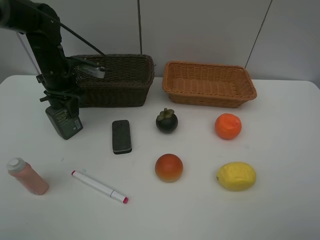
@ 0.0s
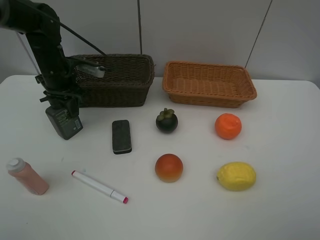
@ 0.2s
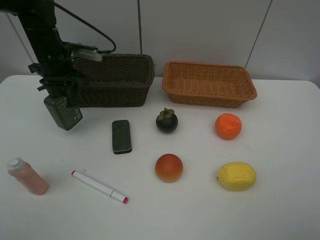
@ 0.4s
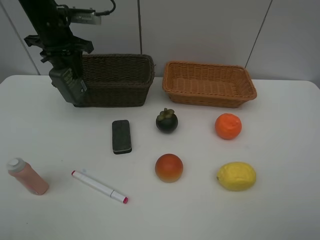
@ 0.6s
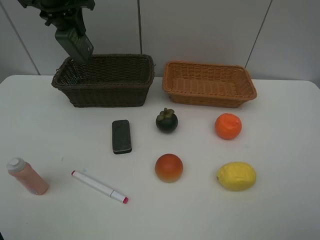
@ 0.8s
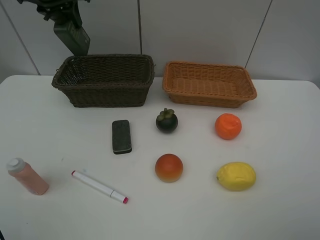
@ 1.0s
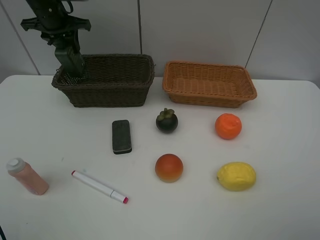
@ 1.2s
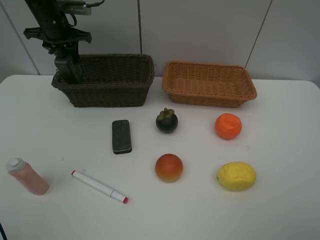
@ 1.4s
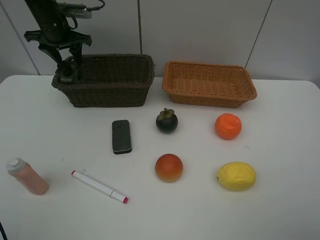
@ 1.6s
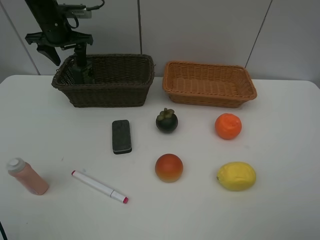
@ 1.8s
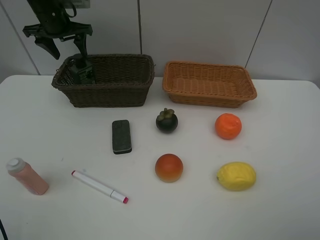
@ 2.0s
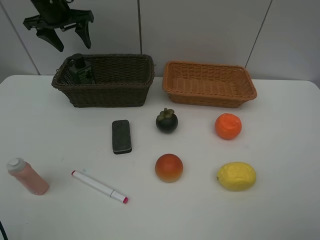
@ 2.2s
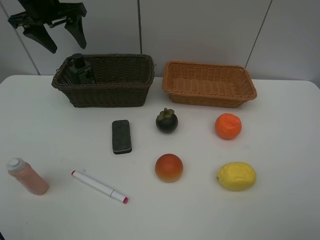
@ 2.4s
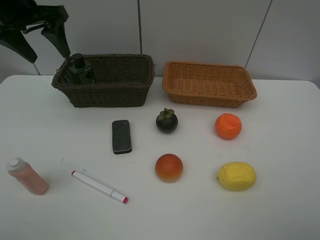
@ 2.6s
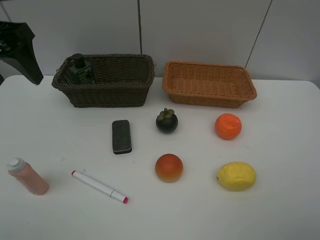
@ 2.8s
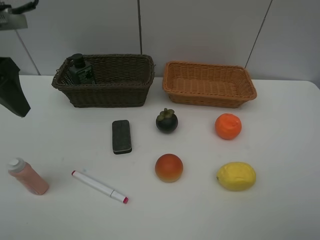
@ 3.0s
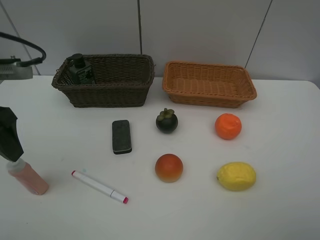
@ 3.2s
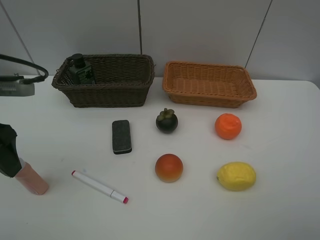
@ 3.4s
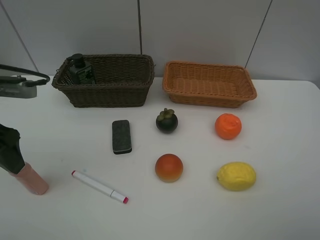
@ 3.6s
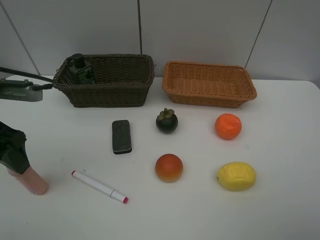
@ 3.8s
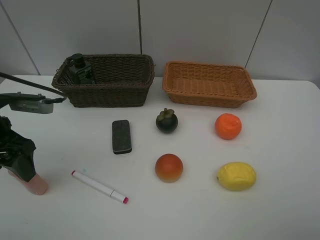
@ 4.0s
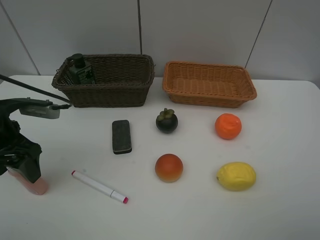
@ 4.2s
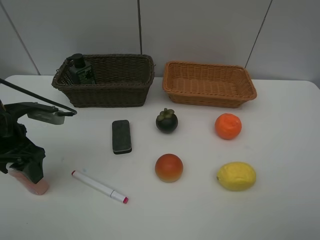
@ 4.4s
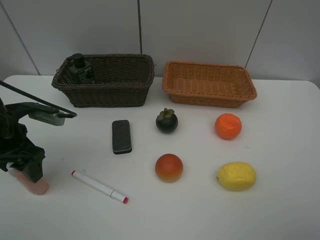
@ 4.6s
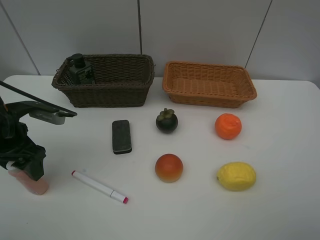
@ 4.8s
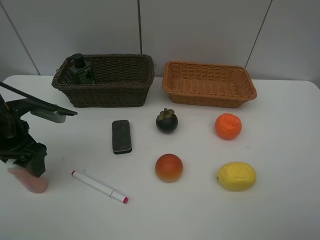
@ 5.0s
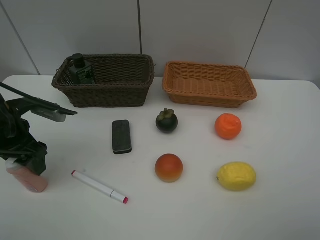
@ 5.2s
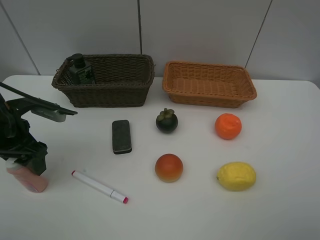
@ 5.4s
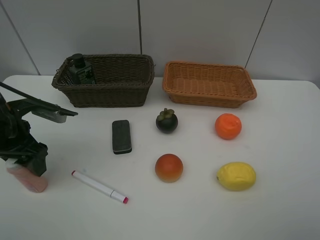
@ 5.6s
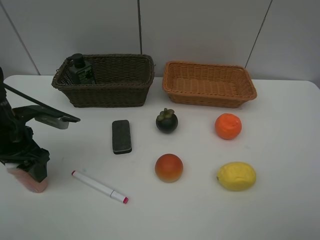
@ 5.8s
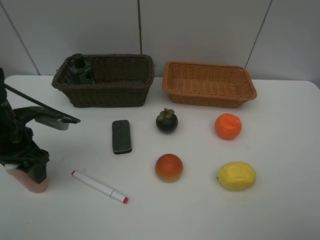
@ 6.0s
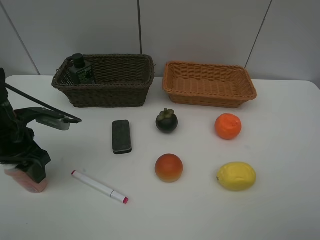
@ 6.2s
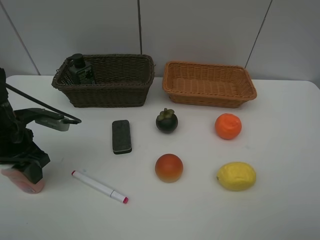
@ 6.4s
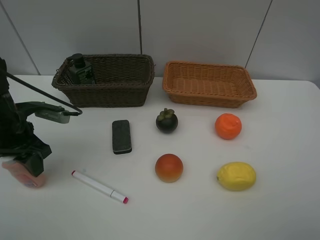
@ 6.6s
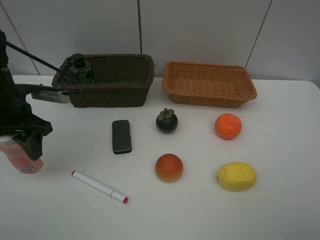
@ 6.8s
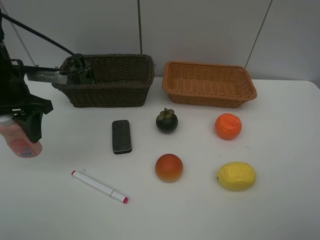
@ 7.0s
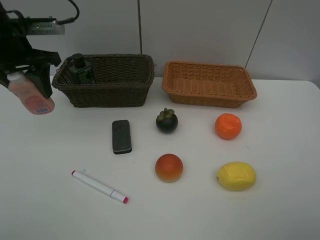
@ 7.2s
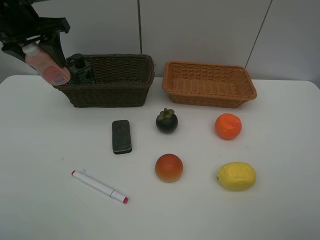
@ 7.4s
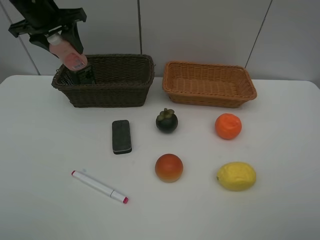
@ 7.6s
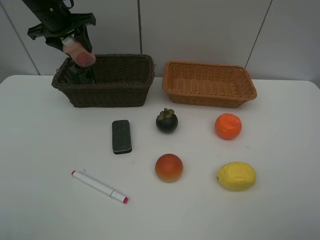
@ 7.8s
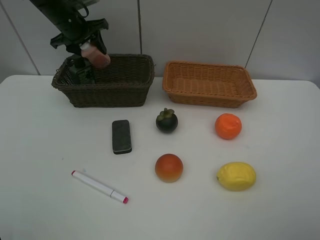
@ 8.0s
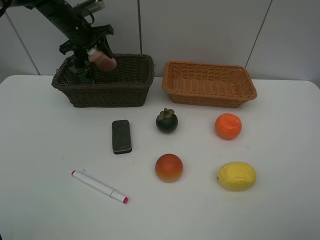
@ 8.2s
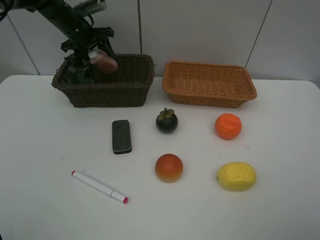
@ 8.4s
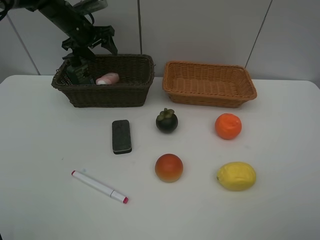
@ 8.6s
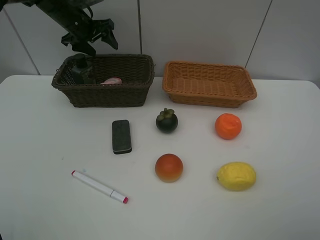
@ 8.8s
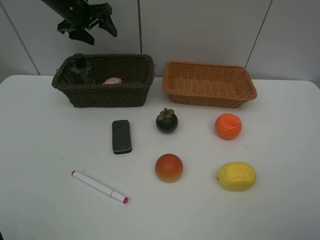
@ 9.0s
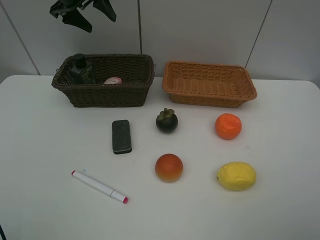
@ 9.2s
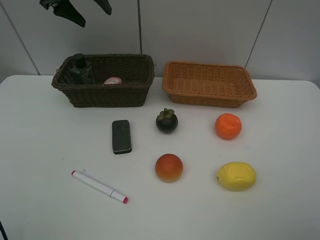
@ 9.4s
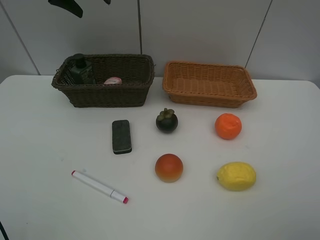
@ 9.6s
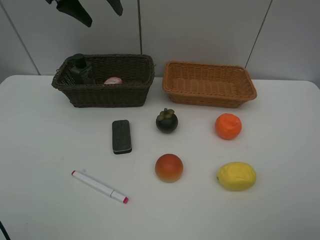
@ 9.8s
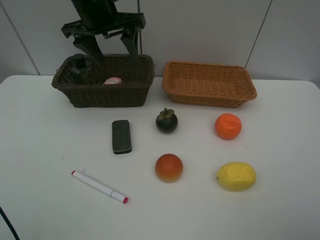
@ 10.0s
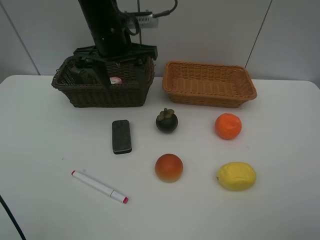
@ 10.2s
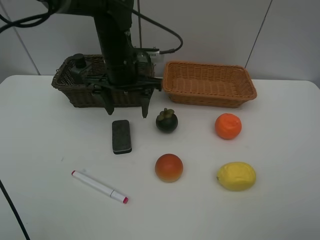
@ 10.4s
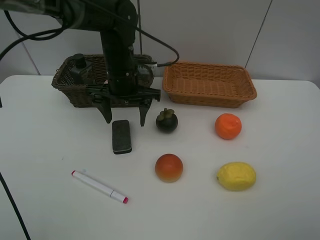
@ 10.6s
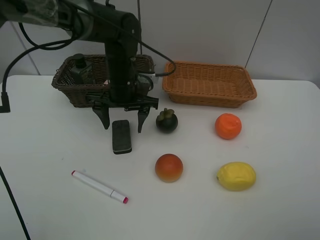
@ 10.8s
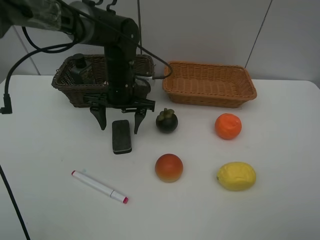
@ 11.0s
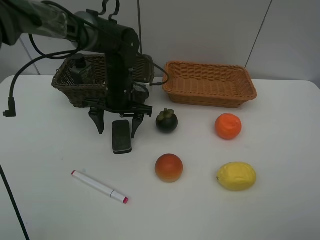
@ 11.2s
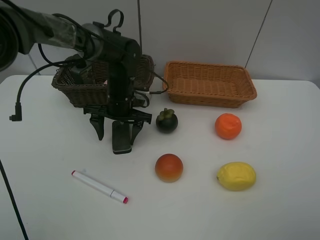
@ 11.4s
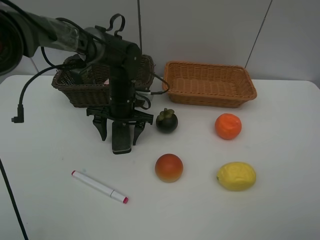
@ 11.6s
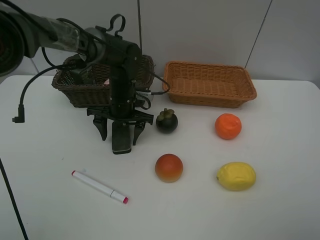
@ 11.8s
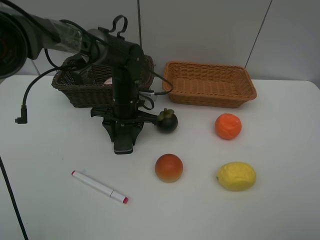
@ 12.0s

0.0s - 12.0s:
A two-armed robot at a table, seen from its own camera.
Task of the whole recording: Place multiple objects separately in different baskets.
Step, 0.6s - 2.0s: Place the hard facial cleanser in the dark basket with left gripper.
Step, 2.2s - 6.6s: Pick up the laundry detergent with left gripper.
Step, 6.8s - 8.6s: Place the laundry detergent in the dark basket with left gripper.
0.0s - 1.6s: The left gripper moves forward and upward, roughly 10 cm, and opens its fingers.
1.6s - 3.0s: The left gripper travels backward by some 30 cm.
3.0s - 4.4s: The left gripper moves downward, about 15 cm.
4.4s - 6.0s: The grippers stay close to where they were, moving slightly.
6.0s - 7.6s: The left gripper is displaced forward and upward by some 25 cm.
7.6s - 9.0s: The left gripper heads forward, covering about 10 cm, and opens.
9.0s - 10.4s: The left gripper shifts approximately 20 cm backward and to the right.
10.4s - 12.0s: The left gripper shifts about 10 cm downward, and closes.

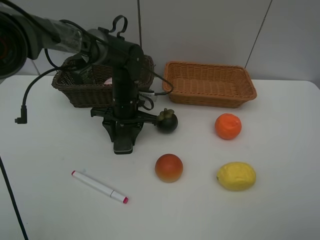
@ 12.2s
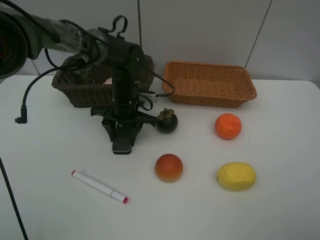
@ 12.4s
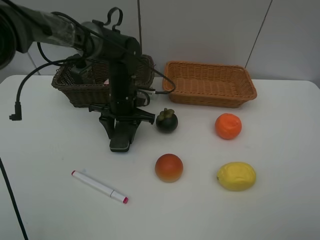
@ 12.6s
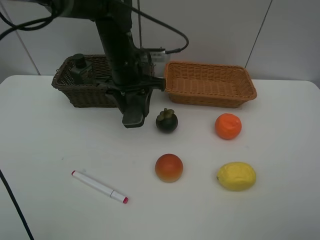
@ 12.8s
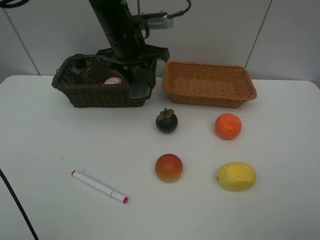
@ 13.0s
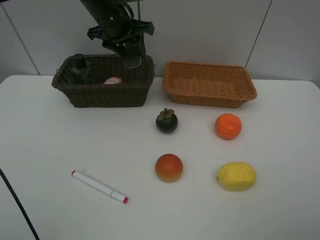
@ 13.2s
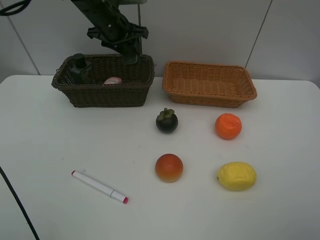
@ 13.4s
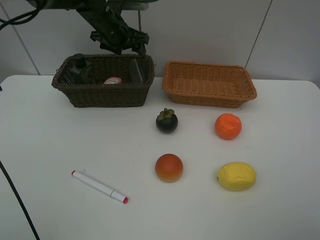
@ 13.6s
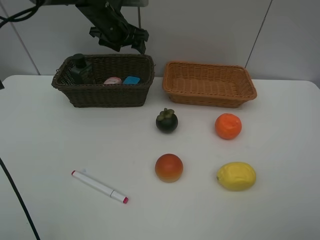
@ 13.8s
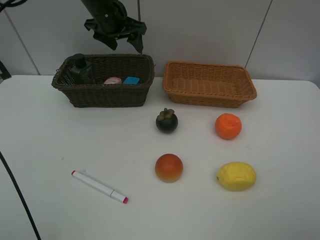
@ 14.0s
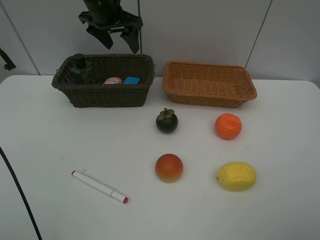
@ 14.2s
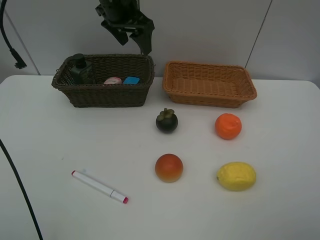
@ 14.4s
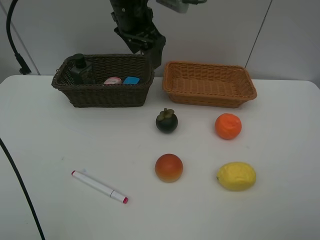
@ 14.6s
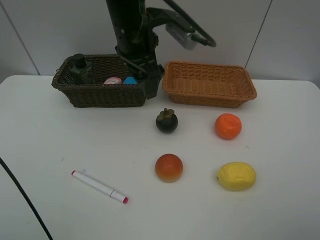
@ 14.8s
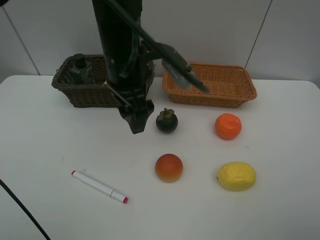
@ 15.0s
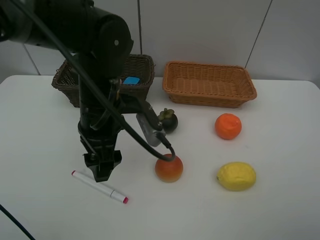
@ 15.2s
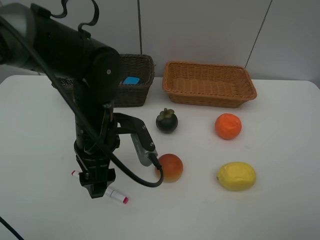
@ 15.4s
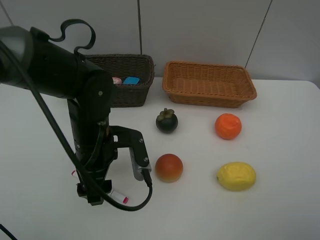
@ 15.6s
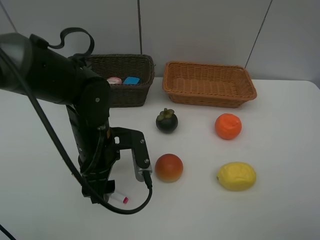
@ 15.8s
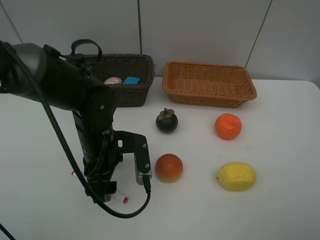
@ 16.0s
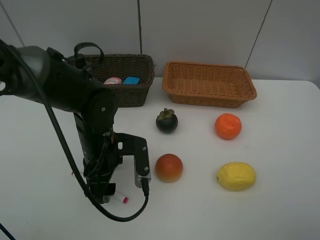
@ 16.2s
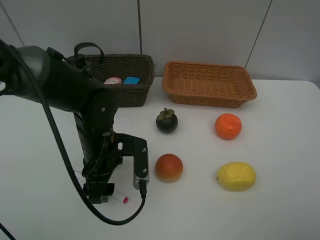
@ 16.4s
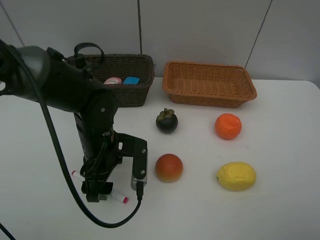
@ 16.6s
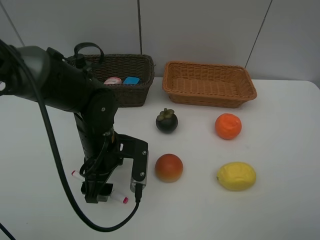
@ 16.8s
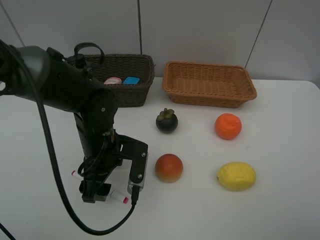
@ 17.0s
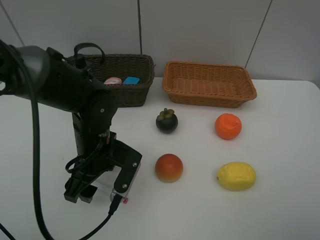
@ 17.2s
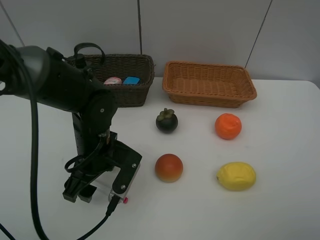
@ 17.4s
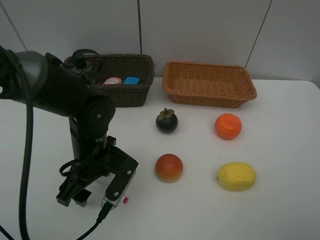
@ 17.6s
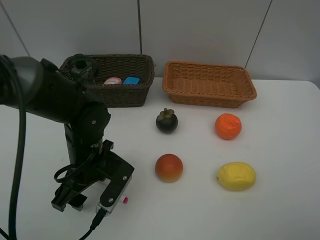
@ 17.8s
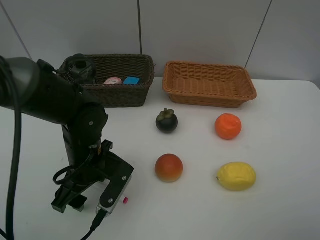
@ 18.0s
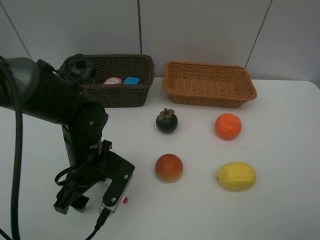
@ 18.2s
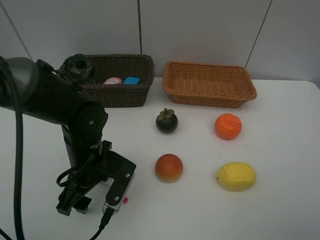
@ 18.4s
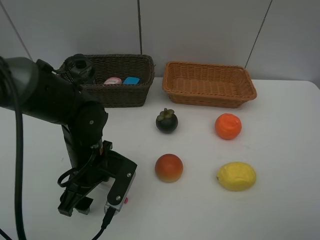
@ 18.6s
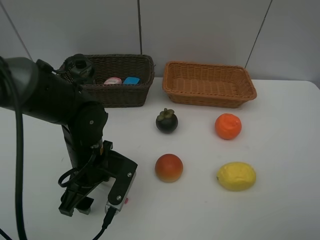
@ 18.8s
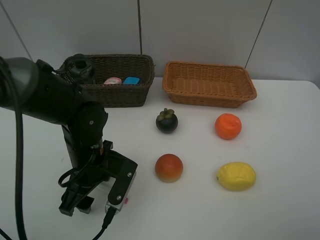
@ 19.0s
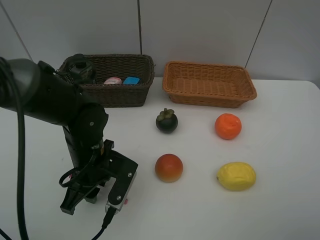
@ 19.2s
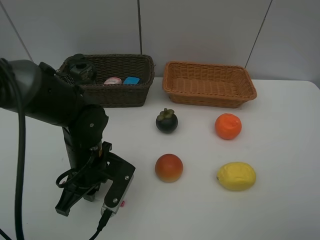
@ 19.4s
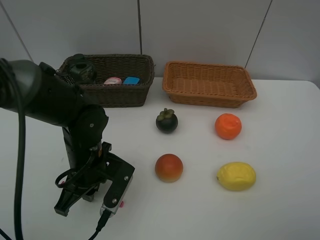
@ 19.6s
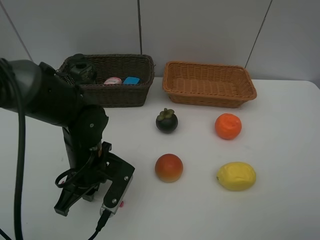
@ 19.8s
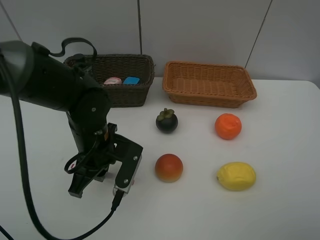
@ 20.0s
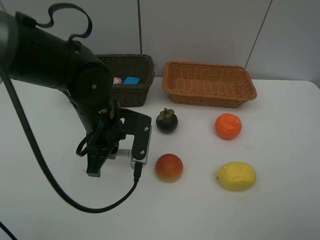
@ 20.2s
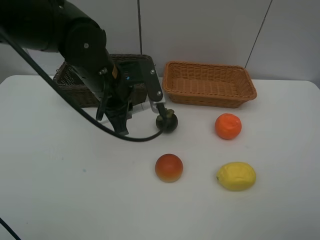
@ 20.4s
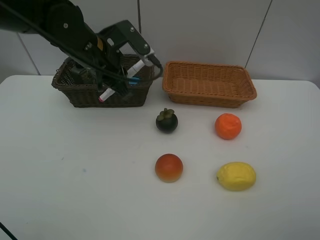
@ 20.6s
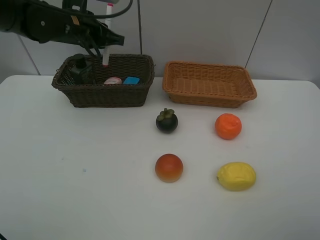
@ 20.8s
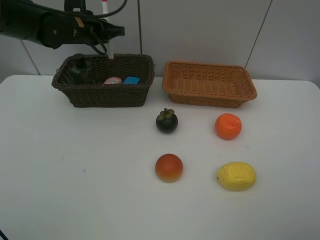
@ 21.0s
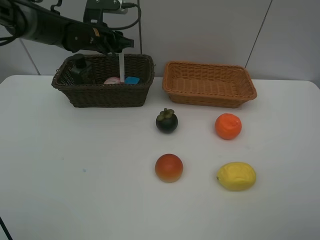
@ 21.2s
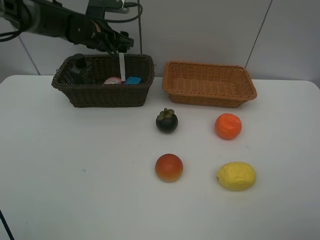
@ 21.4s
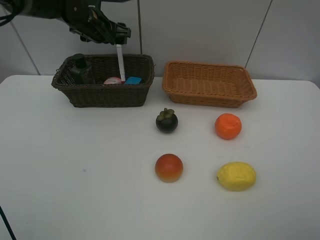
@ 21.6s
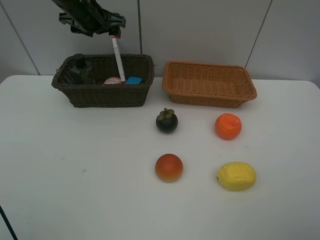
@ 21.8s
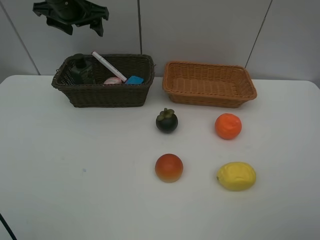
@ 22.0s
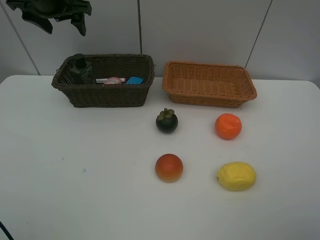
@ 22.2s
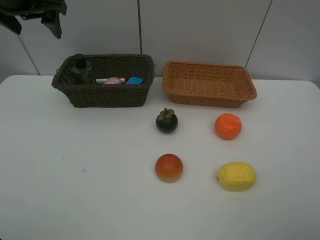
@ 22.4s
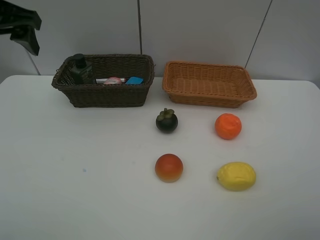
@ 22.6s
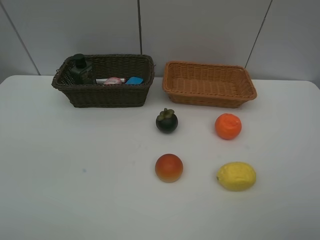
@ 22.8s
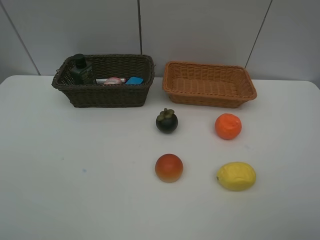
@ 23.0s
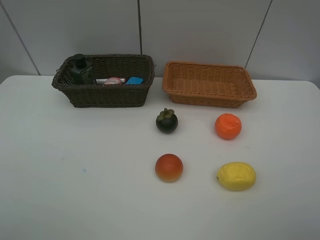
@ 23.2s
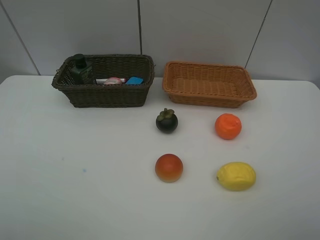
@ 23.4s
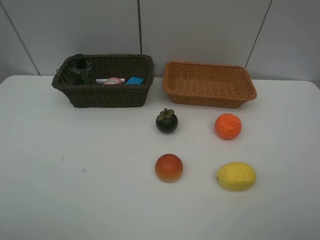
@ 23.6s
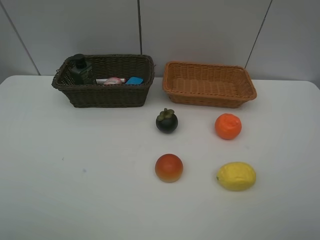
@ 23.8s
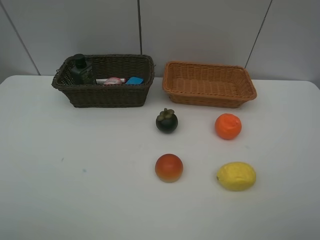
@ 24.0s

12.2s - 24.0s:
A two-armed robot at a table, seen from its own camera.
Task of the whole recording: Place multiple objects separately in different baskets.
Step, 12.8s - 13.8s: Place the blackboard eraser in the dark basket with left gripper.
Step, 14.0s - 20.0s: Pick up the red marker with left gripper.
Step, 20.2s - 21.8s: Place the red marker in the dark basket with left gripper.
12.2s - 13.6s: The left gripper shifts roughly 15 cm upward and forward, and opens.
13.6s - 15.2s: The left gripper heads backward, covering approximately 25 cm.
15.2s - 16.6s: The left gripper is displaced downward by roughly 5 cm.
18.2s - 19.6s: The left gripper closes its fingers.
19.6s - 21.0s: The left gripper moves forward and upward, approximately 25 cm.
21.0s - 22.6s: The left gripper travels backward, upward and to the left by approximately 20 cm, and opens.
22.6s - 24.0s: The left gripper moves backward, approximately 30 cm.
